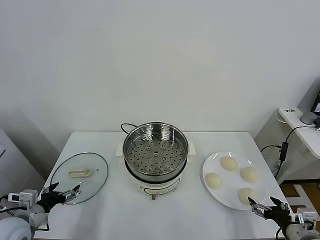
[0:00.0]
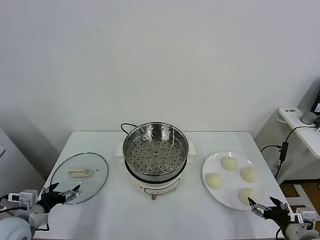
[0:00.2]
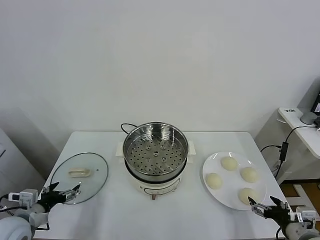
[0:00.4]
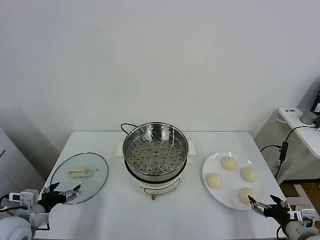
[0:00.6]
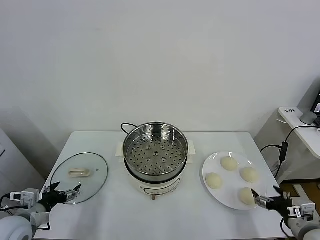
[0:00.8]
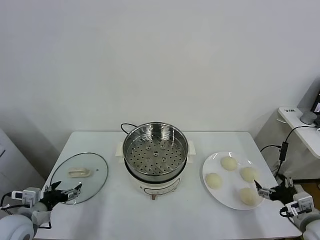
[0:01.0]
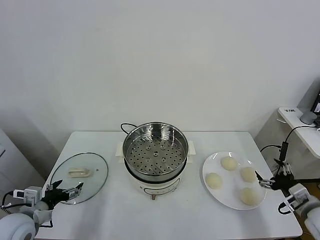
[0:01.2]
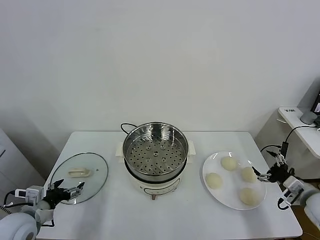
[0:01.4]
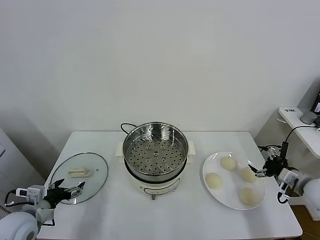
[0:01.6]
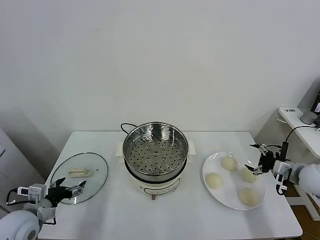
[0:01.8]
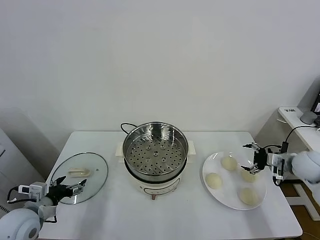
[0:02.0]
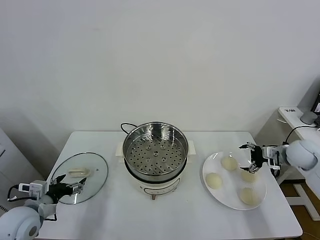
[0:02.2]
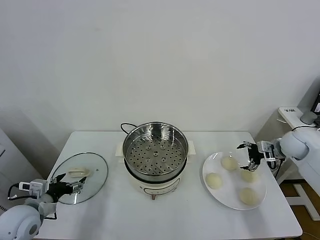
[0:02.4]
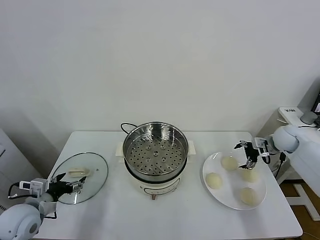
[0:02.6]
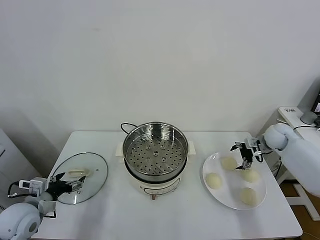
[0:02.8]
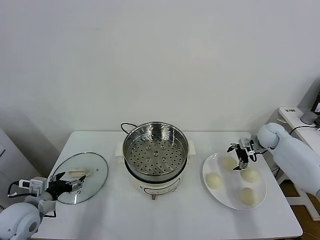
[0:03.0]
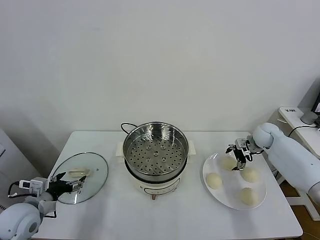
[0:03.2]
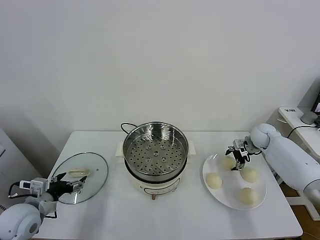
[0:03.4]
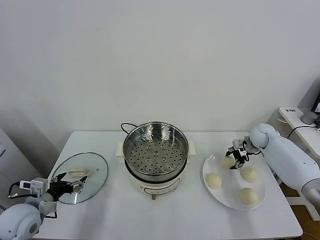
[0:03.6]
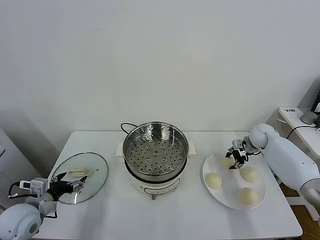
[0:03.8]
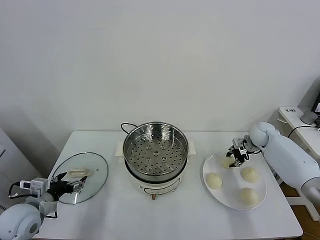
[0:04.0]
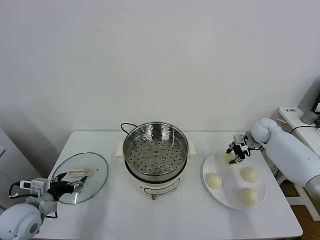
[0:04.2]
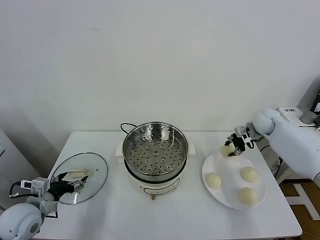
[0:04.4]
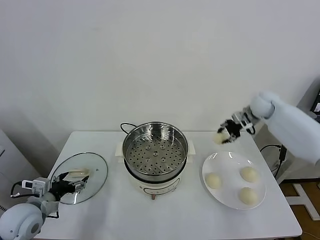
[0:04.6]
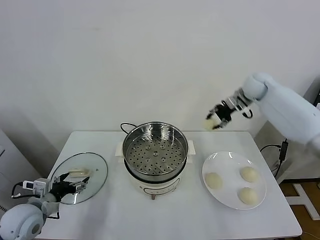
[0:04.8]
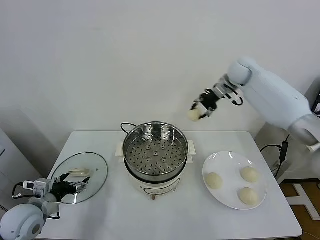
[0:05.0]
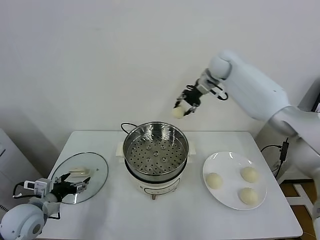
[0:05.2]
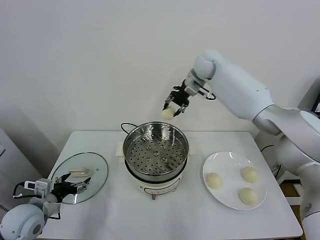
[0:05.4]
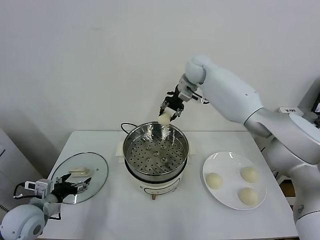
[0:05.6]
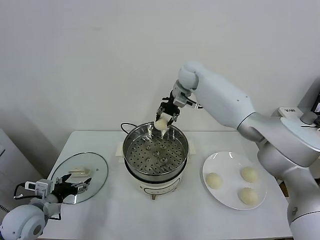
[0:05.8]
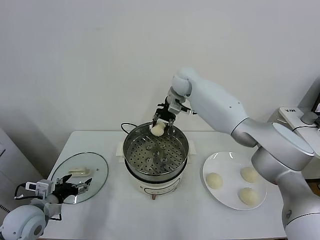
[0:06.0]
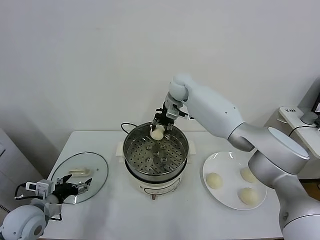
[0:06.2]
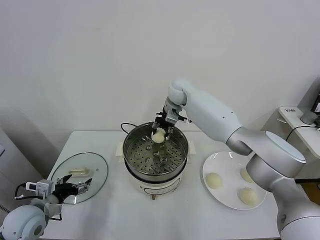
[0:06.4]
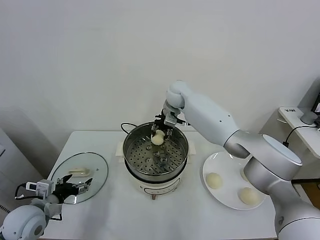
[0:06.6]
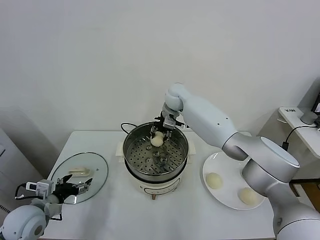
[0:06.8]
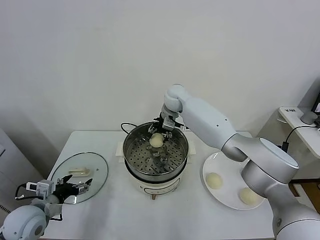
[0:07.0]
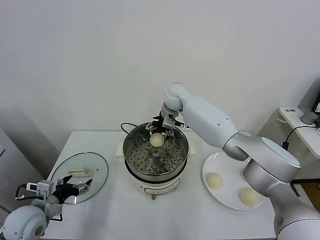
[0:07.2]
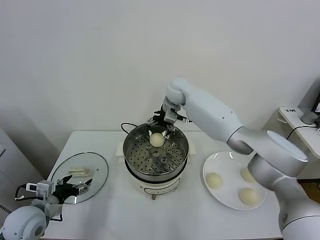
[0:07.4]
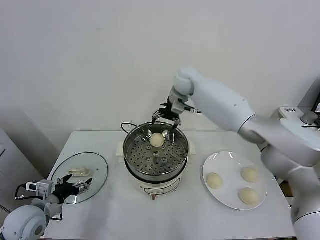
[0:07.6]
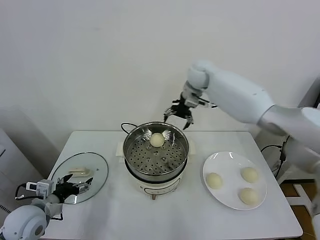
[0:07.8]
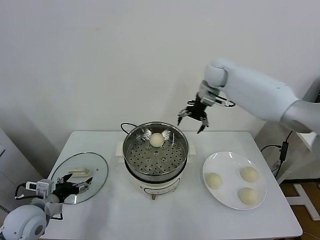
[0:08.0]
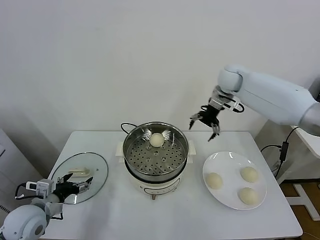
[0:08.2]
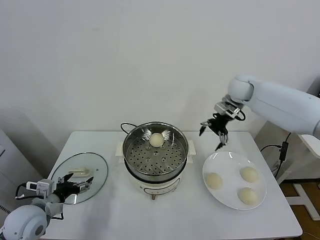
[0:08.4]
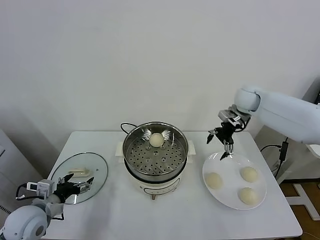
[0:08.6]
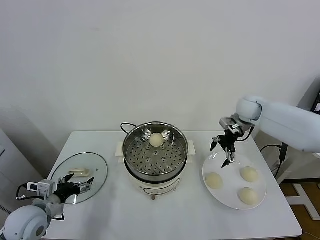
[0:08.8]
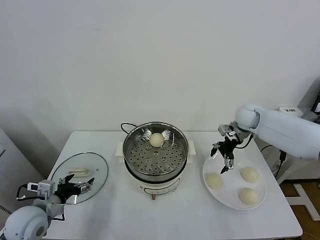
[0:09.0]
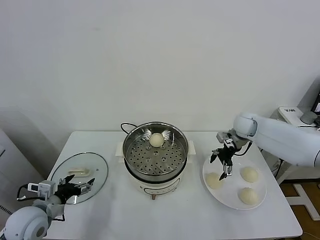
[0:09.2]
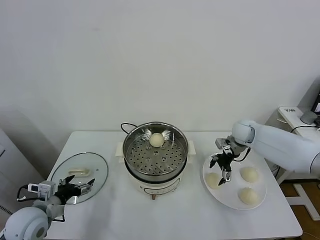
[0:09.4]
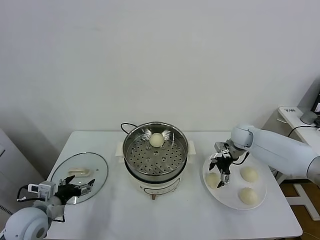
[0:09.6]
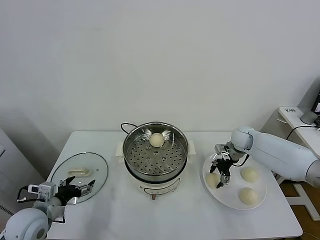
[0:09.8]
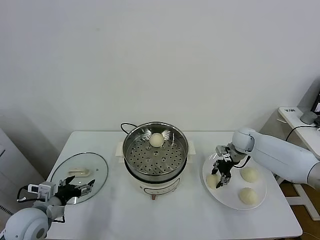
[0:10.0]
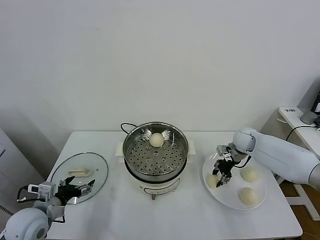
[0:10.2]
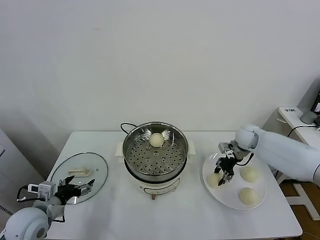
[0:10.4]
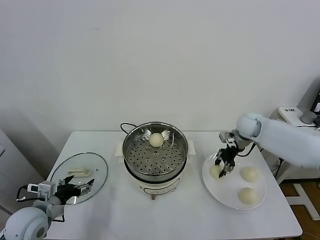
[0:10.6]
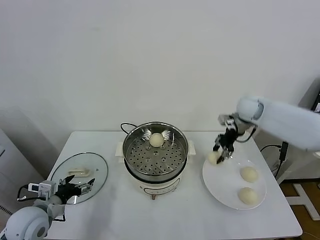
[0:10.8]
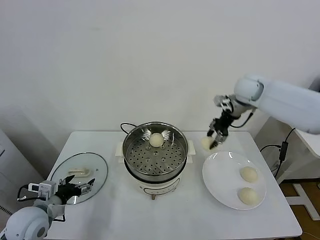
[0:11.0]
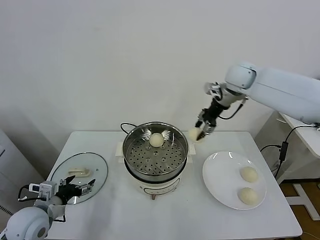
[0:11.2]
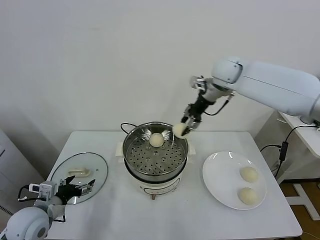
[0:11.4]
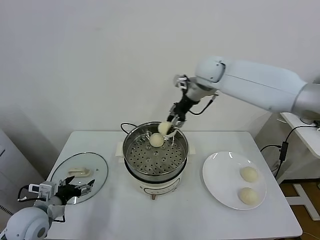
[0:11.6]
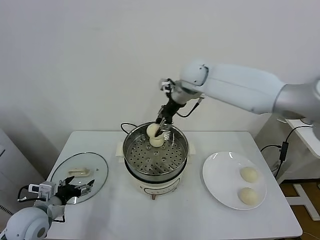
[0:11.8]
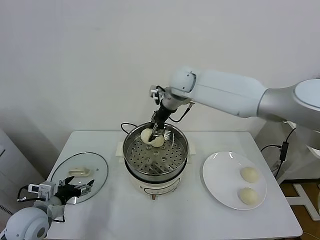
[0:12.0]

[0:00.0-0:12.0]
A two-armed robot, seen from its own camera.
Task of the whole recording: take steamed baozi put them in steamer.
Step, 0:00.0 to 0:03.8: Grasp the baozi in the plate with right gripper.
Step, 0:04.0 to 0:07.4: Place the baozi on the steamer with right gripper.
Step, 0:07.6 to 0:10.0: Grasp the baozi in the plate with right gripper.
0:01.6 to 0:03.0: The right gripper goes some 20 cm forward.
0:03.0 to 0:04.4: The right gripper moves upward, some 10 cm, and closes up.
0:04.4 to 0:06.0: The right gripper goes approximately 30 cm to the left.
0:06.0 to 0:07.6: The right gripper opens up.
0:07.6 to 0:09.0: The right gripper moves to the right and downward, some 25 cm.
0:09.0 to 0:10.4: The right gripper shifts approximately 5 cm downward, and closes its fingers.
0:10.4 to 0:12.0: The right gripper shifts some 35 cm to the left and upward.

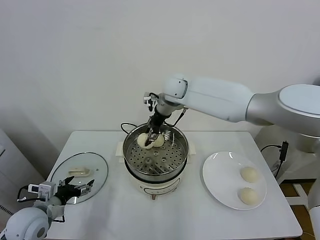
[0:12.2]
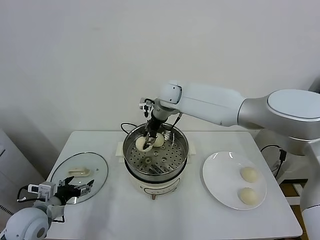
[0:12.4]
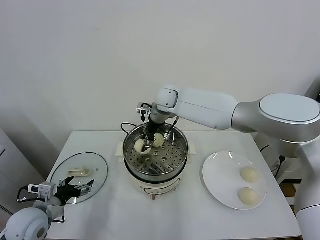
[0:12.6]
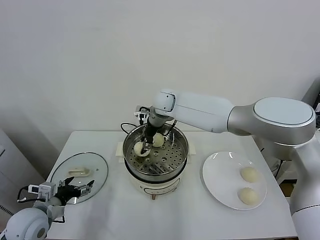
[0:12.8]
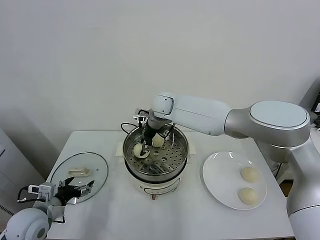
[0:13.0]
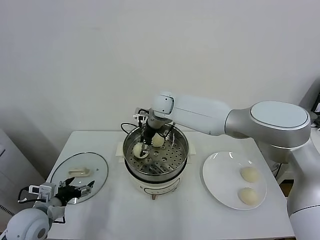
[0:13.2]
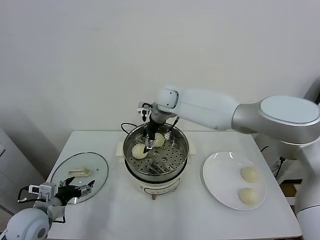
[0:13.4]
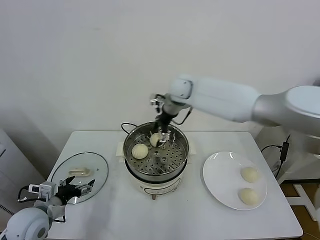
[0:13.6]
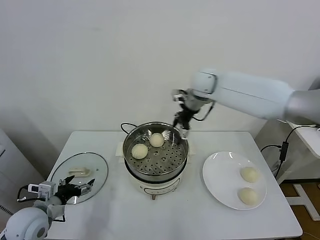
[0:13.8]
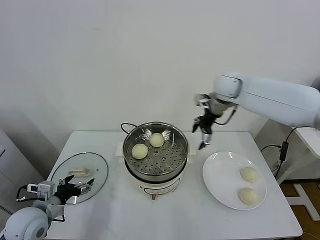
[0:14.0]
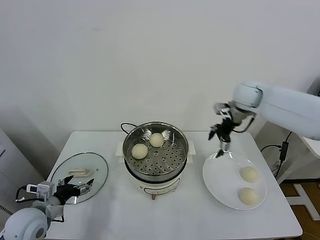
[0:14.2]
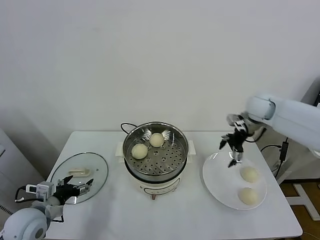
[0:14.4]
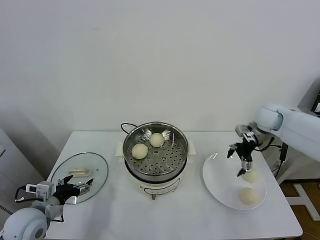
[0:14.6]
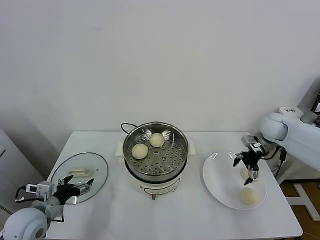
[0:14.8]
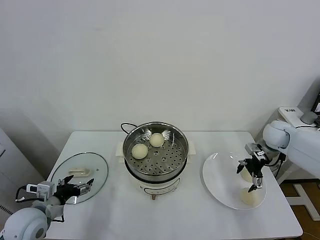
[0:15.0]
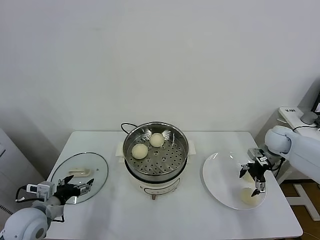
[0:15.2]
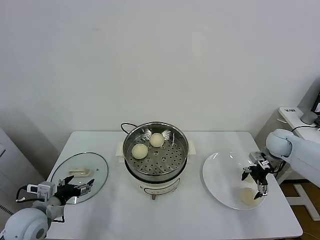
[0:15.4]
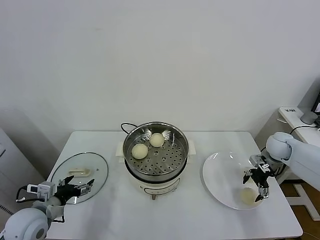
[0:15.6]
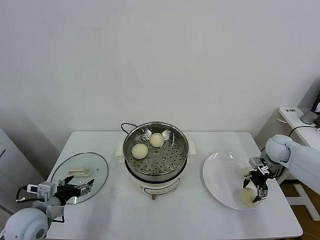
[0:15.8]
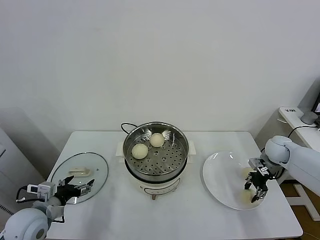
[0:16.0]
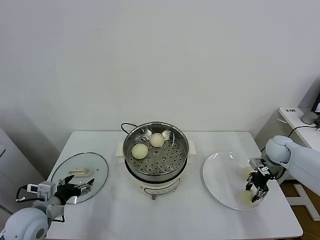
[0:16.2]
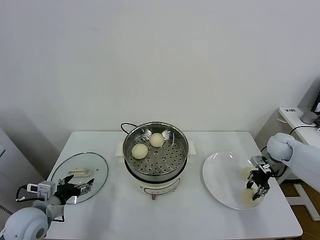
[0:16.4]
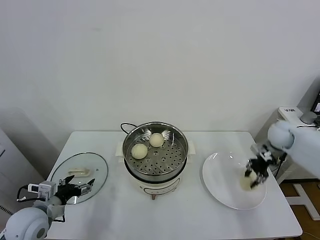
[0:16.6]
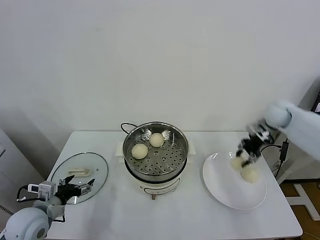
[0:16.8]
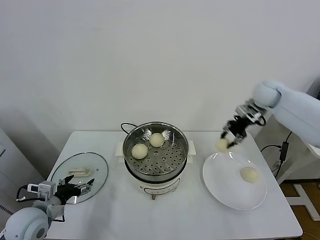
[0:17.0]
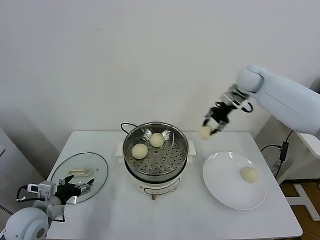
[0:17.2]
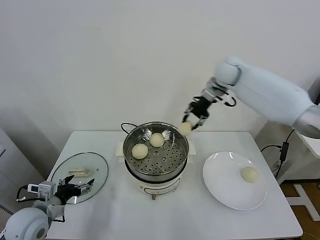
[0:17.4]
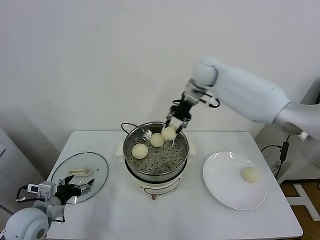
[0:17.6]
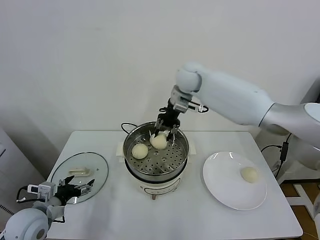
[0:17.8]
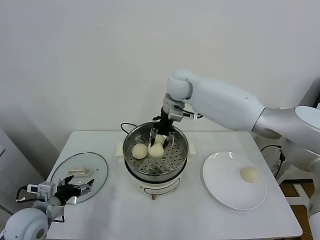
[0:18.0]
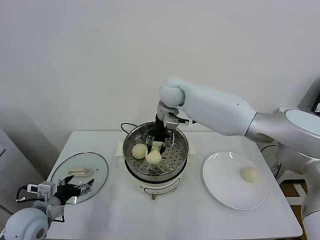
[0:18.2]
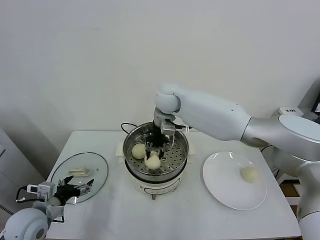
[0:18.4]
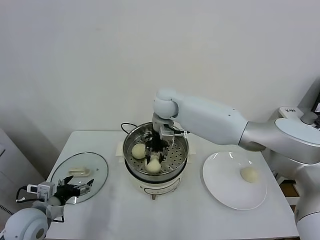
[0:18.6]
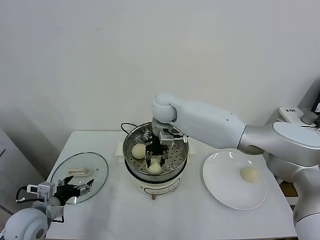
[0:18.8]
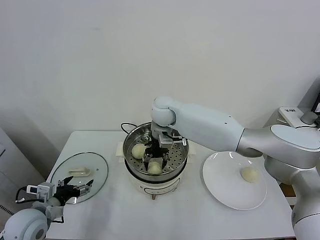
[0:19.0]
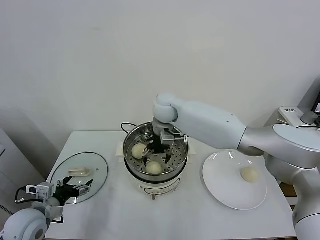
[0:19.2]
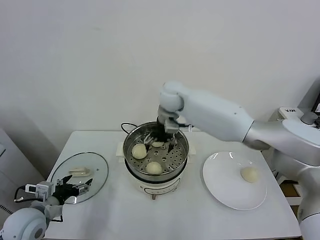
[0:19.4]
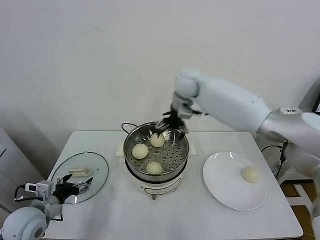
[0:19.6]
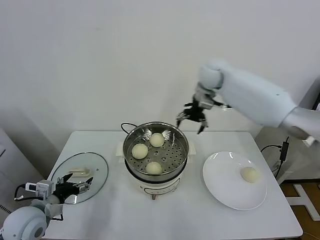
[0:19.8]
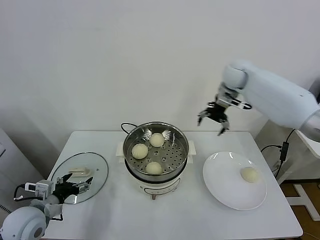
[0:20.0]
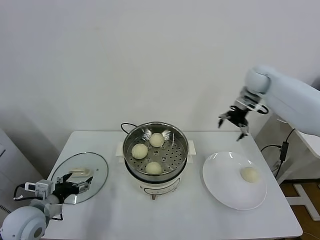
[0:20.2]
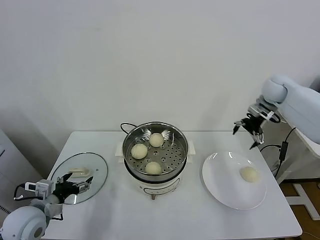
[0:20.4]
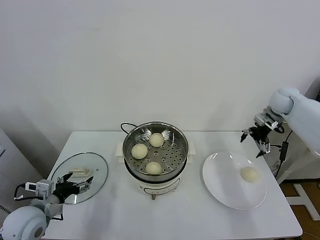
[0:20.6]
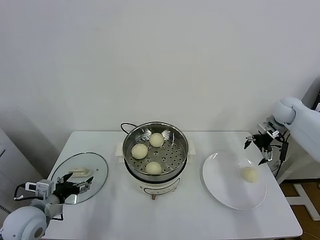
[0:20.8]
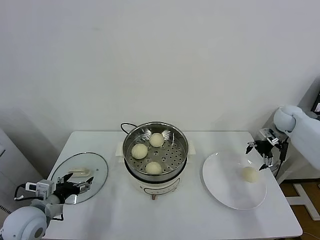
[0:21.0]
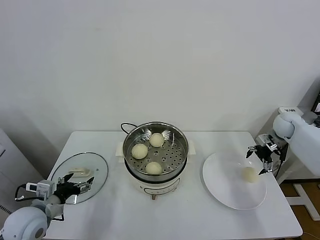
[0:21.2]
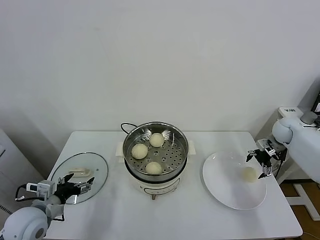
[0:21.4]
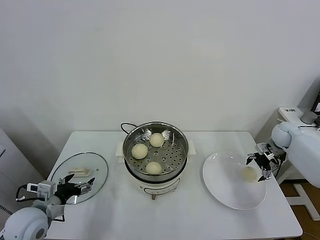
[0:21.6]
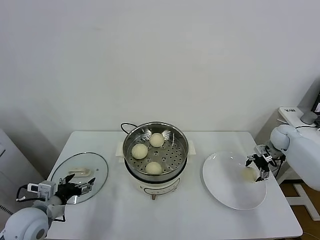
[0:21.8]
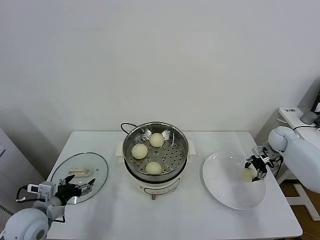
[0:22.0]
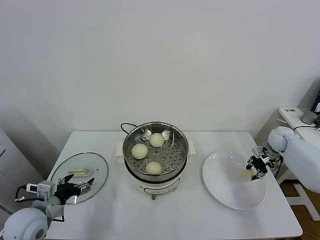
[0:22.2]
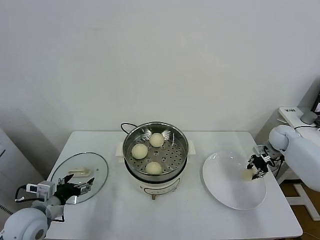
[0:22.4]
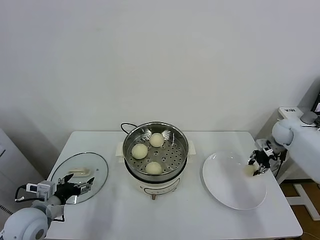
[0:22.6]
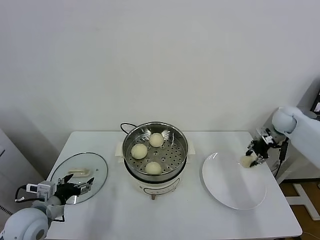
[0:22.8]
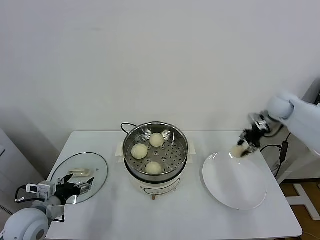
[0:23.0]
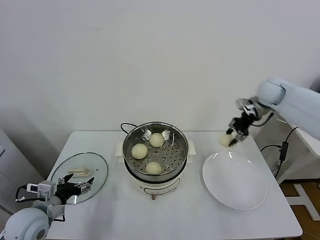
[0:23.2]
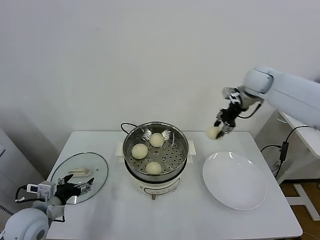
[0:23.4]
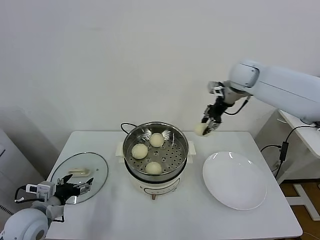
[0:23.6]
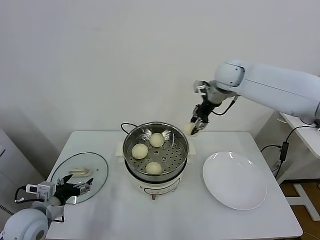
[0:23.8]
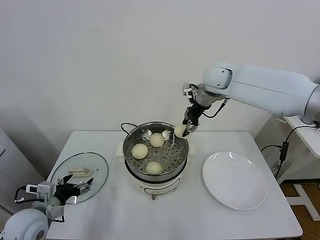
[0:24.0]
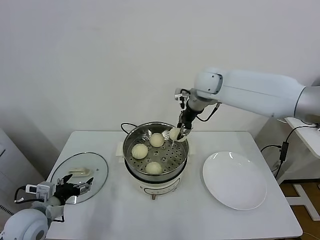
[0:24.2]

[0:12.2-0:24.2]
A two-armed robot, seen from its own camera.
Task of the whole recording: take steamed baozi put them in steamer.
Step, 0:13.6 to 0:16.0: Grasp the baozi in the plate with right gripper.
Step, 0:16.2 to 0:19.2: Place the baozi on the steamer with right gripper.
Step, 0:19.6 to 0:22.2: Grasp the baozi in the plate with right gripper.
0:12.2 to 0:13.8: The right gripper travels to the right by roughly 10 cm, and opens.
0:13.8 to 0:15.2: The right gripper travels to the right and downward by about 30 cm.
0:15.2 to 0:16.6: The right gripper closes.
0:16.6 to 0:18.2: The right gripper travels to the left by about 40 cm.
0:18.2 to 0:19.8: The right gripper goes some 15 cm to the right, and opens up.
0:19.8 to 0:21.2: The right gripper is displaced to the right and downward by some 35 cm.
0:21.2 to 0:22.6: The right gripper closes its fingers.
0:22.6 to 0:24.2: The right gripper shifts about 40 cm to the left and upward.
